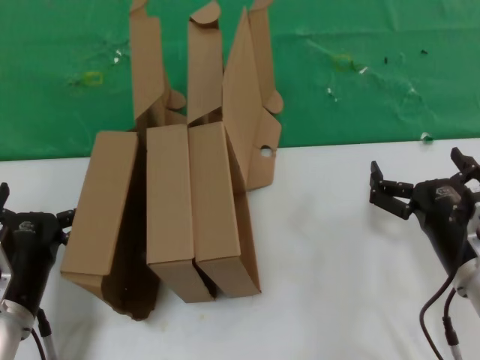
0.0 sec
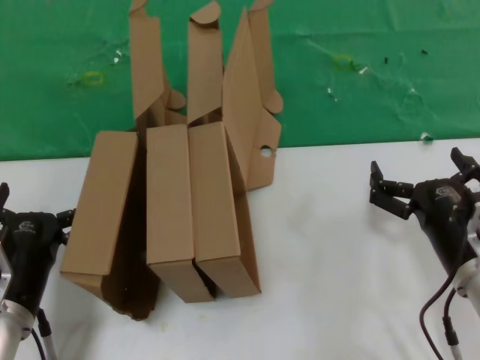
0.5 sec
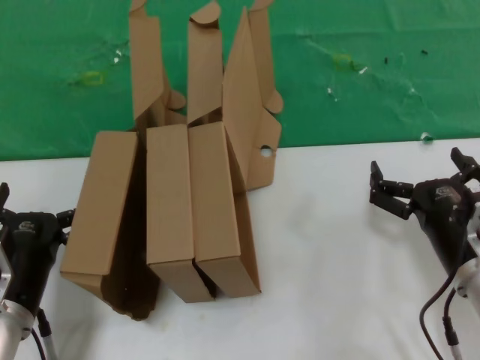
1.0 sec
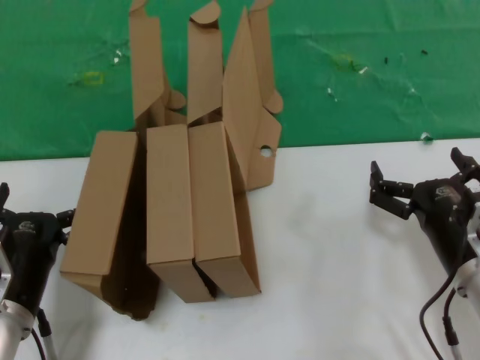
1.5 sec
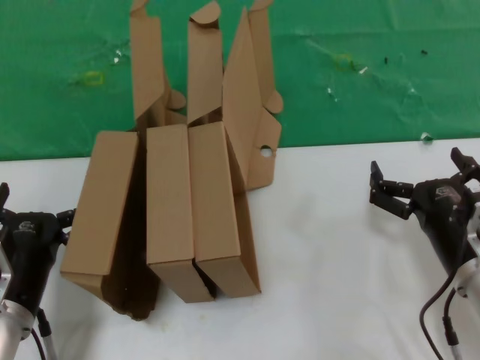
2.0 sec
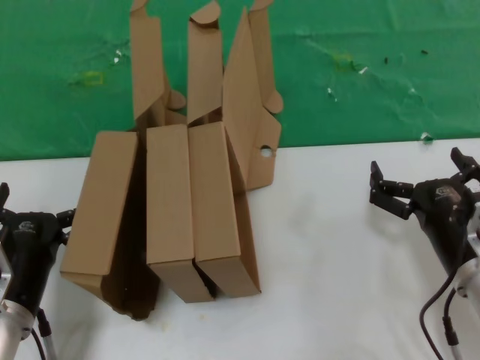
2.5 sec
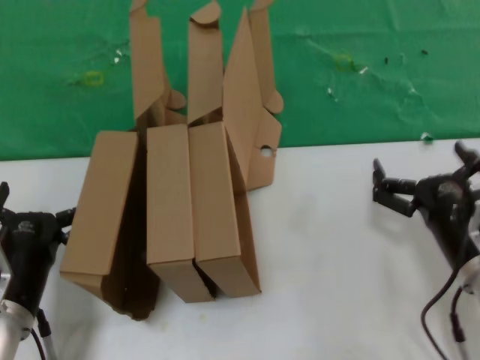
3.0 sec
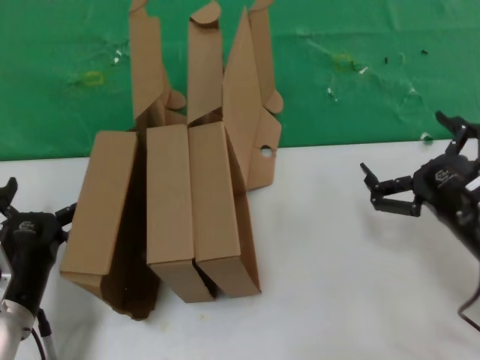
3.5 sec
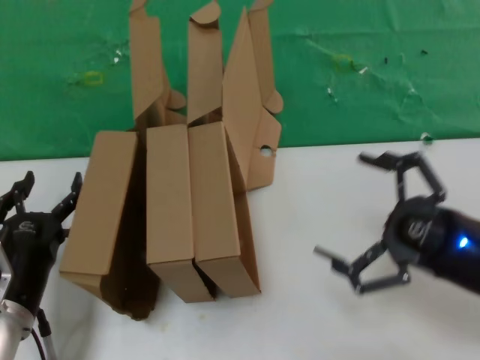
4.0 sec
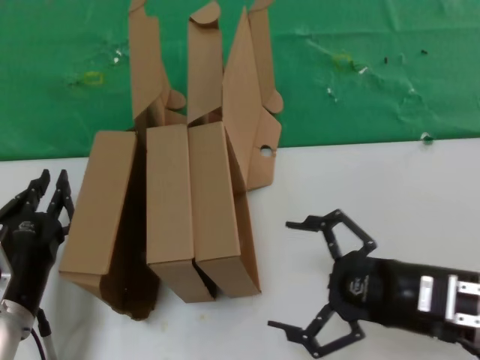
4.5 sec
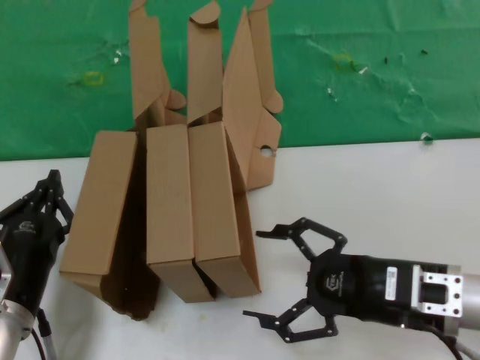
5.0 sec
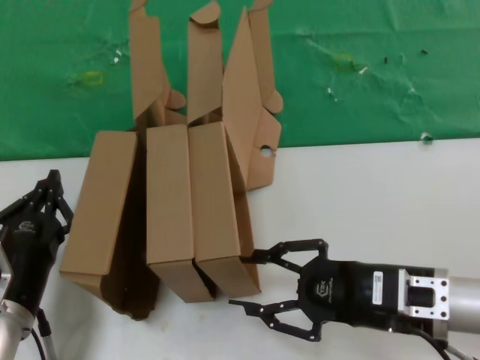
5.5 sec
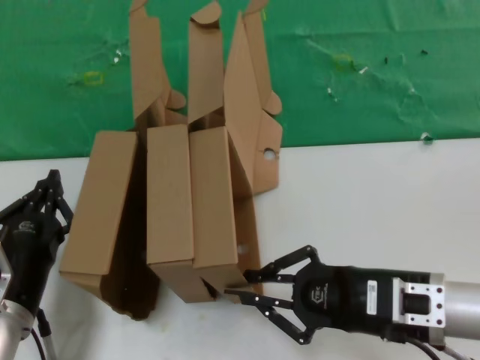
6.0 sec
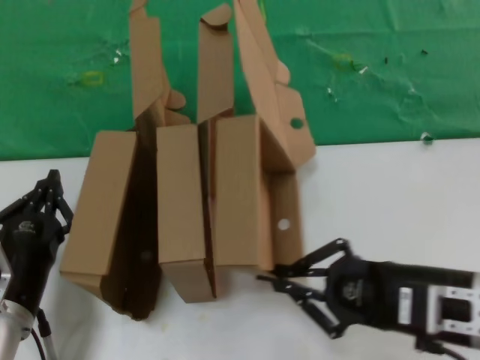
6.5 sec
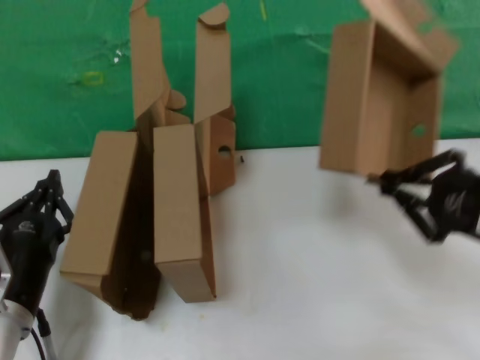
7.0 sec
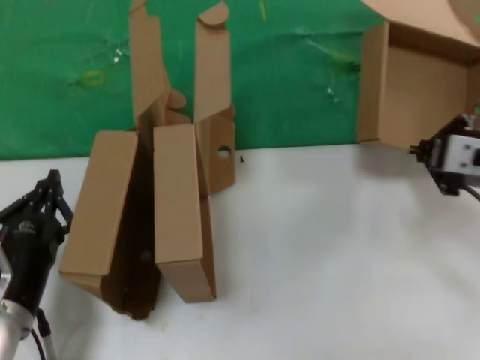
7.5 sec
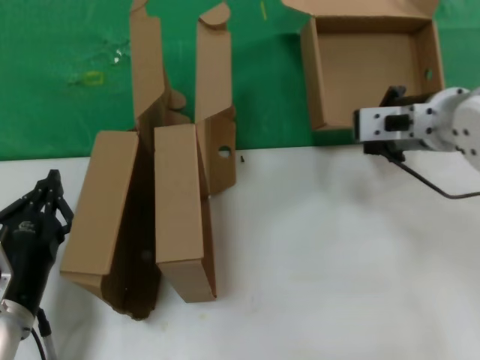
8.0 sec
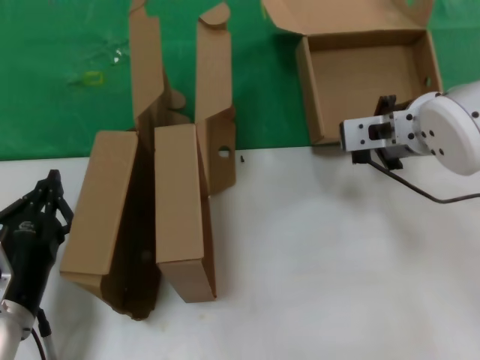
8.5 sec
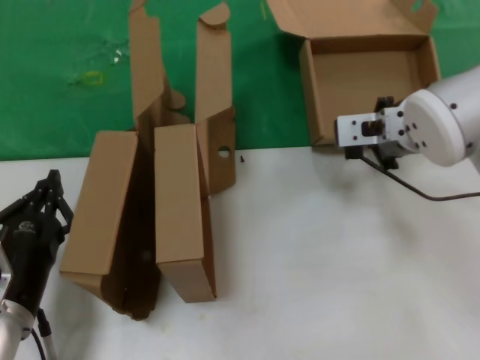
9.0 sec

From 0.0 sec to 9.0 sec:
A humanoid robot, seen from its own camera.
Task of the whole recording: pick up the paper box and put it at the back.
Step, from 0.0 sec to 6.0 sec: Grasp the paper box.
From 0.0 sec to 2.0 sec: Both hands stay about where they are.
From 2.0 sec to 4.5 sec: The right hand heads upward, covering approximately 5 cm.
From 4.5 sec to 7.0 sec: The right hand heads upward, covering roughly 10 cm.
From 7.0 sec to 9.0 sec: The right hand goes about 25 cm forward and to the left.

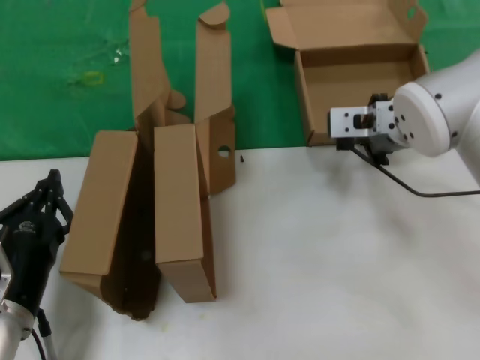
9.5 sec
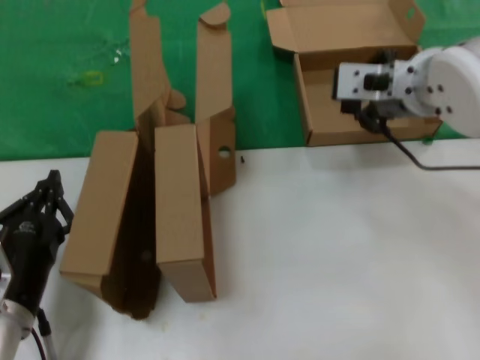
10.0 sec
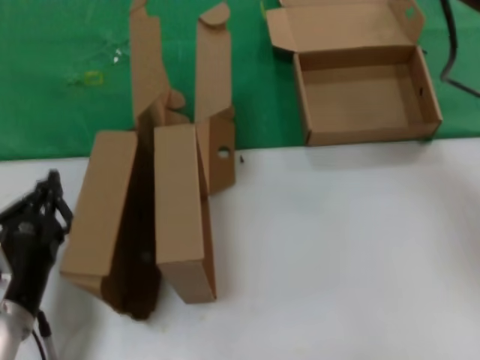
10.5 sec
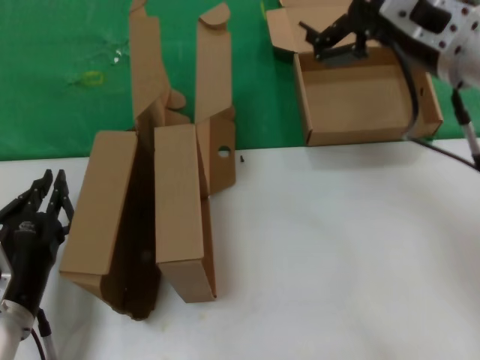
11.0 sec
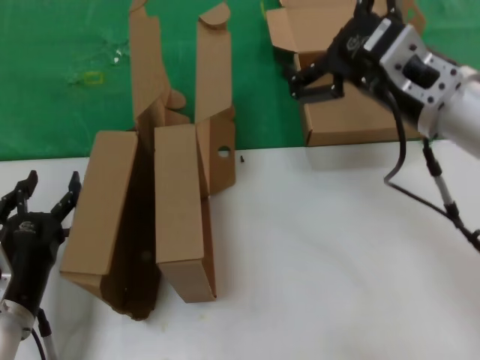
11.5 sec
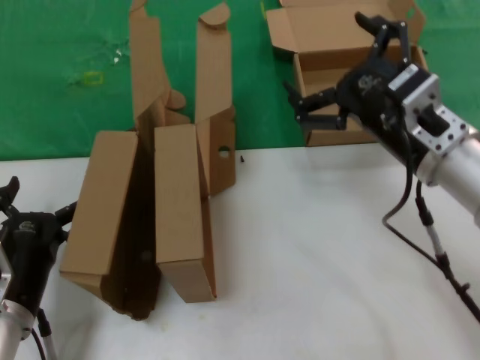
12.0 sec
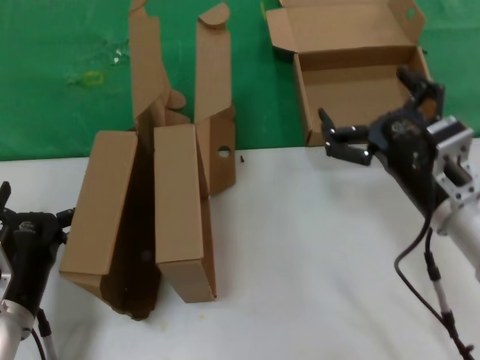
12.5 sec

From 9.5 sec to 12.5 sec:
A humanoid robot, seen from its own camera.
Task of the whole recording: pick up the paper box and put it at the back.
From 9.5 sec to 11.0 sec: The right hand heads backward and upward, covering about 15 cm.
From 11.0 sec to 12.5 sec: The right hand goes some 20 cm downward.
